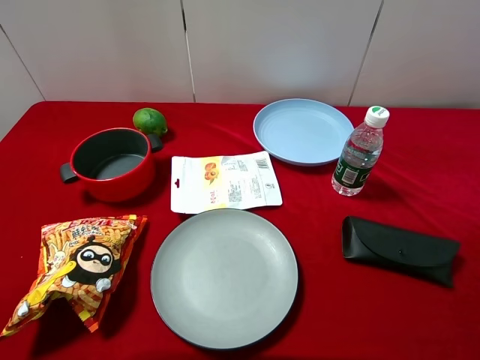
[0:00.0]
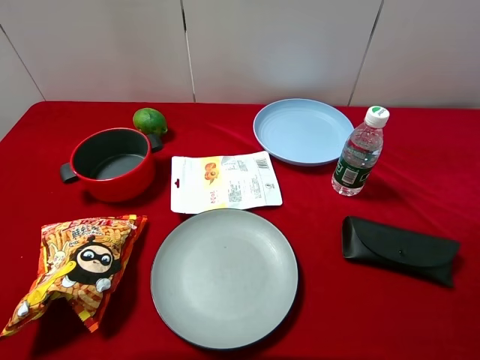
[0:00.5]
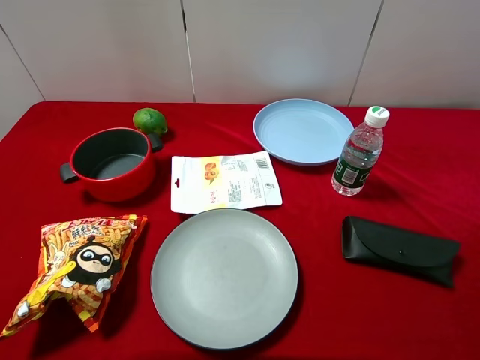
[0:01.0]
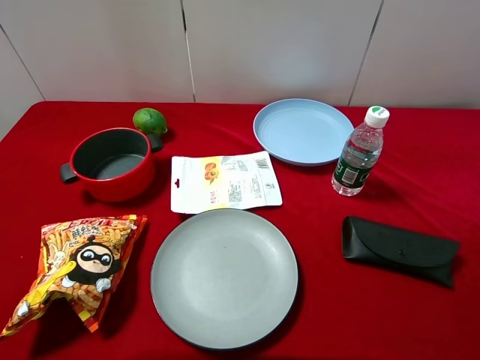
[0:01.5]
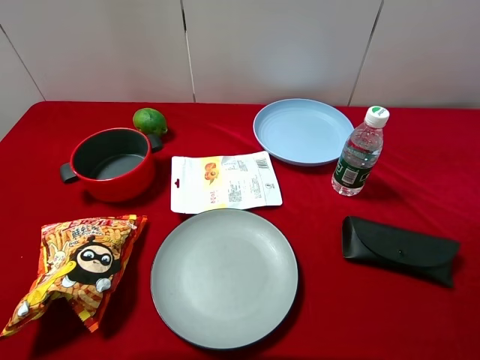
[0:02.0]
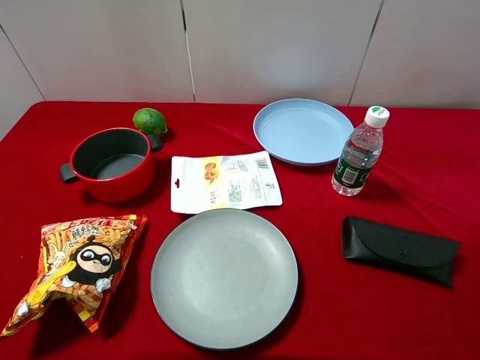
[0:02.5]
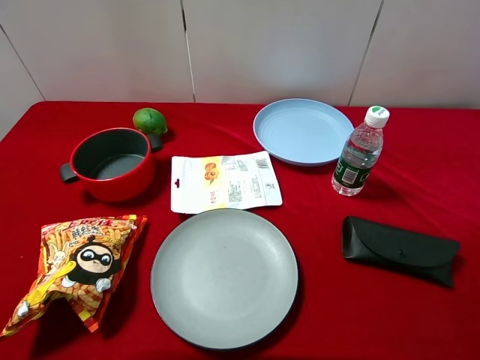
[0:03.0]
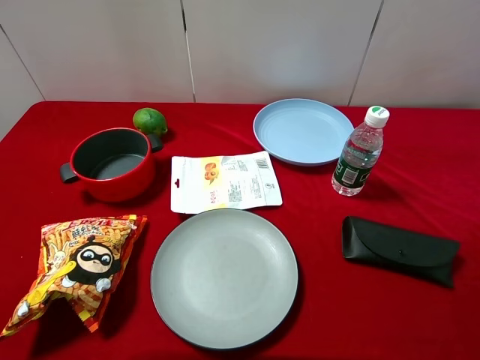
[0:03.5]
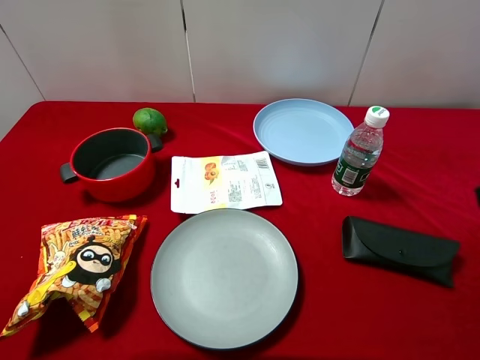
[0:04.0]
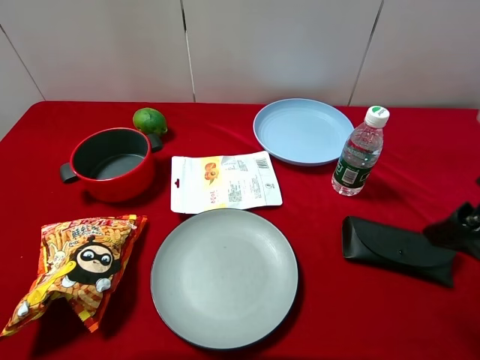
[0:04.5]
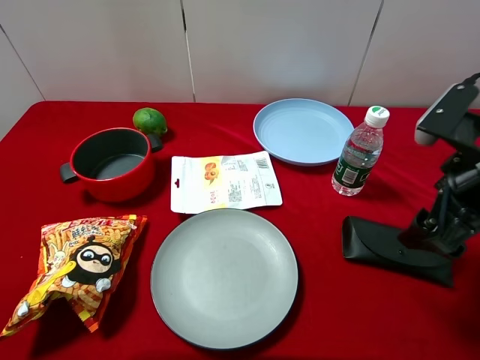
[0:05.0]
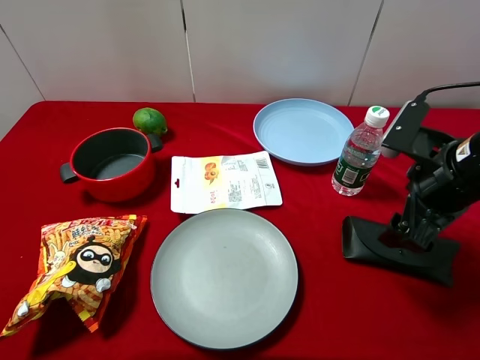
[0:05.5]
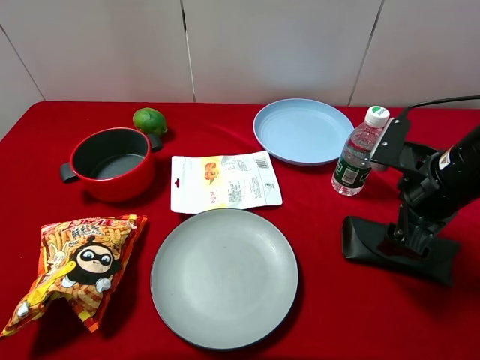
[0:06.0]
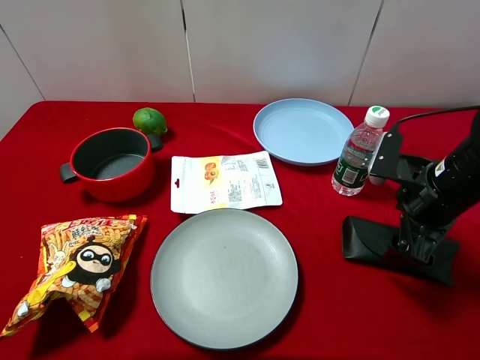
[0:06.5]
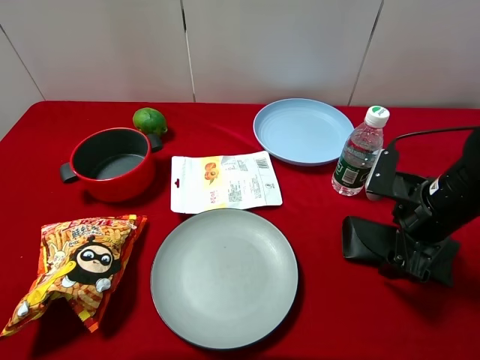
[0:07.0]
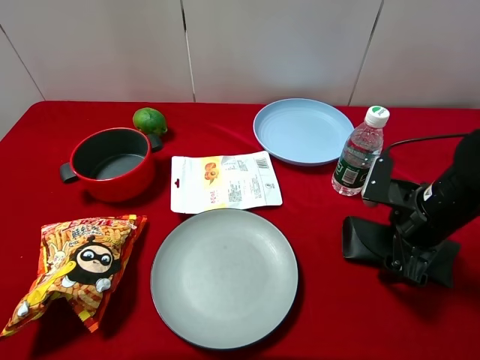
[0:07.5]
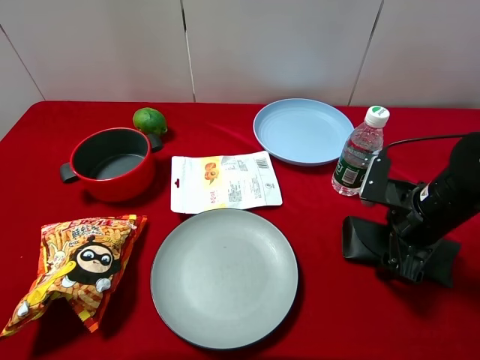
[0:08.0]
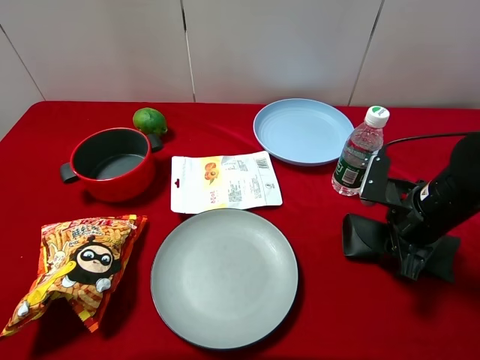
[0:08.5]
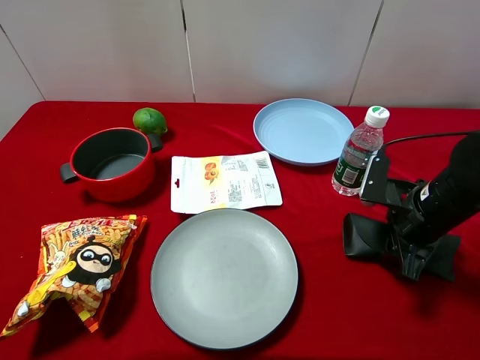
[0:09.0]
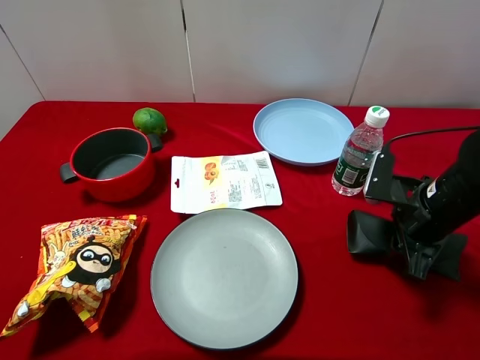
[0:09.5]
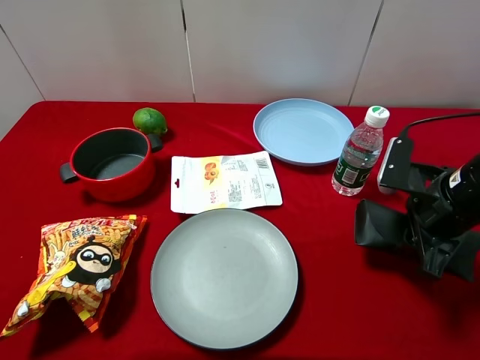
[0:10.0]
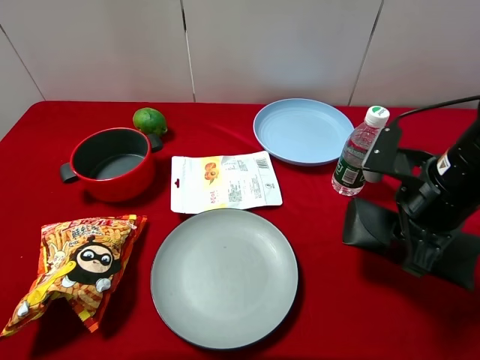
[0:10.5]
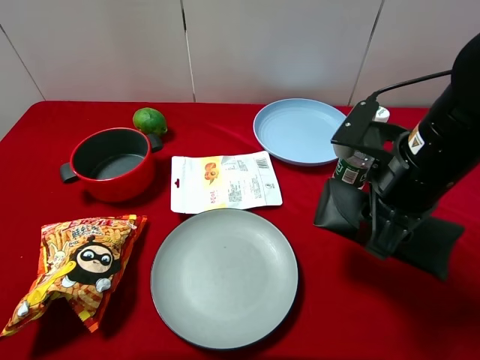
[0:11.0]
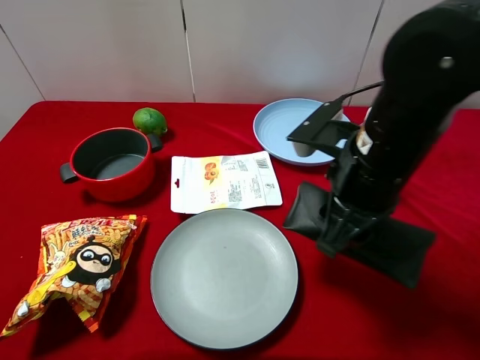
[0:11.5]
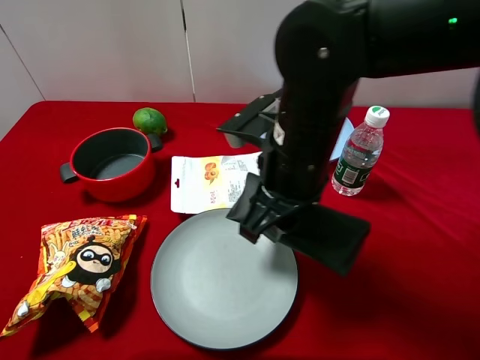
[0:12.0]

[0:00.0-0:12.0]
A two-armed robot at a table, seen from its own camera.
Task of the whole recording: pick up an item with a gripper and place it in a random container on the desktop.
0:00.0 to 0:02.0: The two grippers keep their place.
0:04.0 to 0:06.0: The right gripper travels downward and forward by some 20 cm.
0:06.0 to 0:08.0: The right gripper shifts roughly 5 cm downward.
0:08.0 to 0:10.0: The right gripper shifts by roughly 5 cm, and closes its fingers.
0:10.0 to 0:12.0: The right gripper heads to the left, covering some 20 cm.

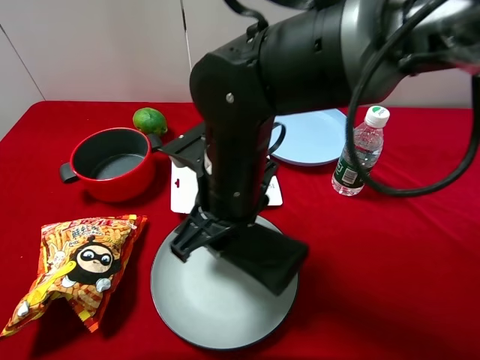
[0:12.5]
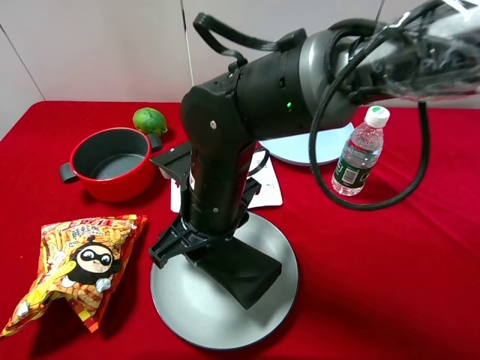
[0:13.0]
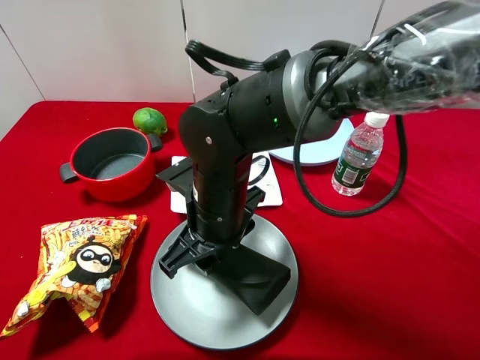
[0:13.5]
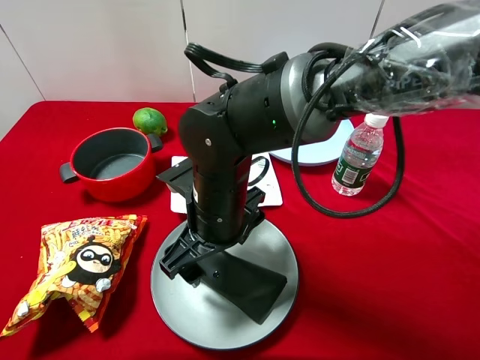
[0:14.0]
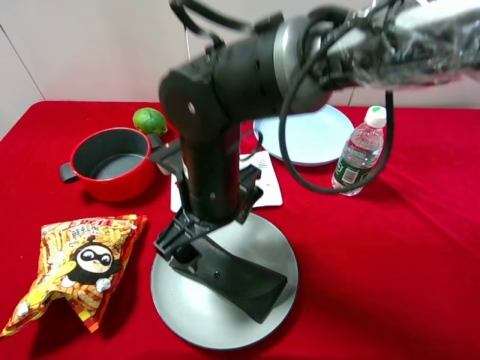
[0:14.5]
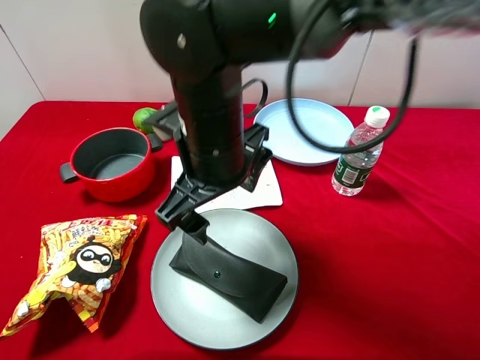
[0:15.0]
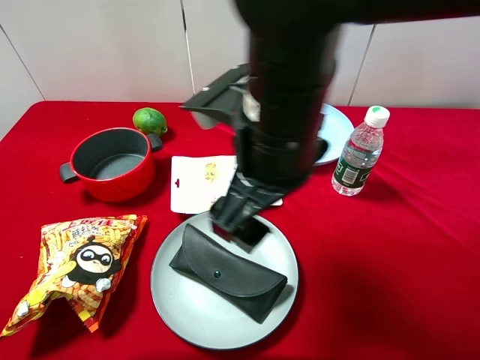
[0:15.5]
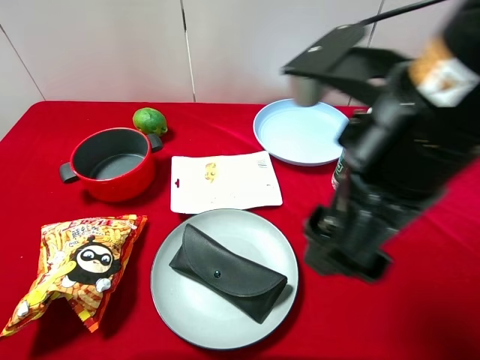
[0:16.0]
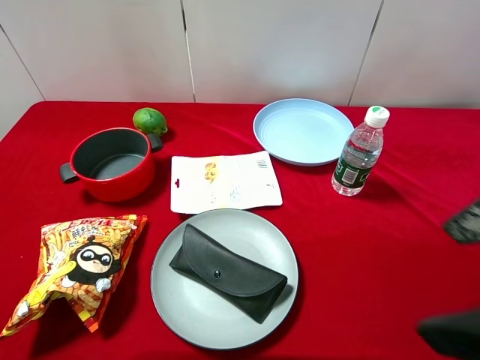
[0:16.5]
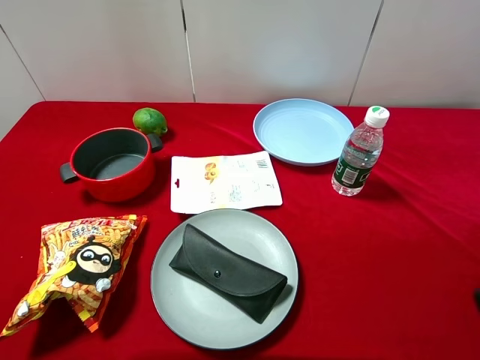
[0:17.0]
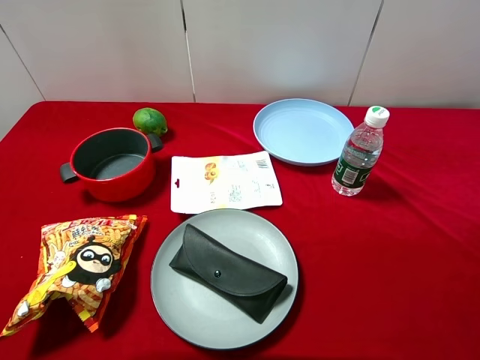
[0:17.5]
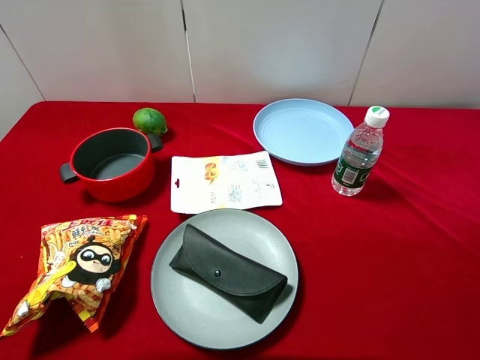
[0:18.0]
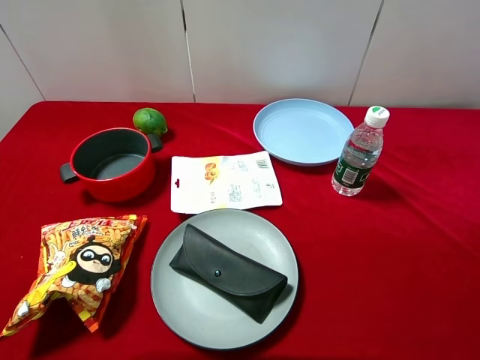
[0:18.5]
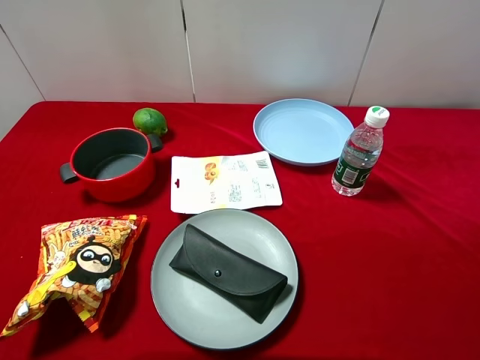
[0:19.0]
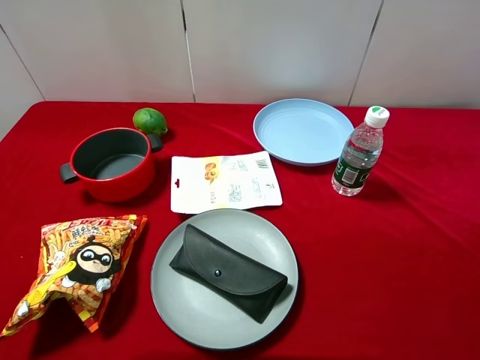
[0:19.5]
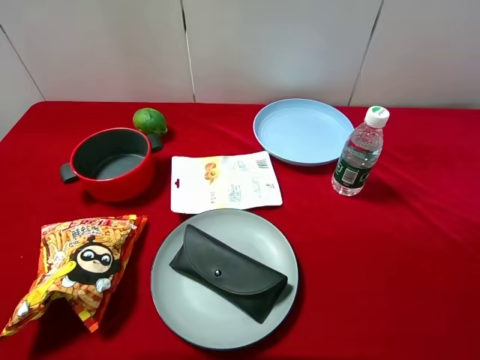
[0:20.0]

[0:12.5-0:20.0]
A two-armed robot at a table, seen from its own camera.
Task of the whole recording: pick up an item with a gripper and place it in a random container on the desktop.
0:12.5 to 0:14.5: The right gripper opens.
0:14.5 to 0:16.5: The right gripper moves to the right, upward and backward, about 30 cm.
0:16.5 to 0:18.0: The right gripper shifts about 10 cm to the right and backward.
0:18.0 to 0:20.0: The two grippers keep their place.
